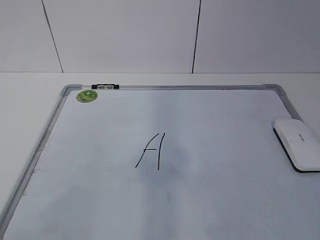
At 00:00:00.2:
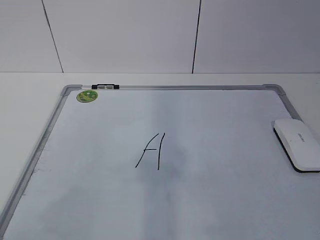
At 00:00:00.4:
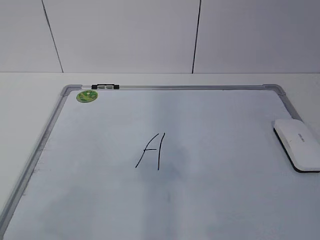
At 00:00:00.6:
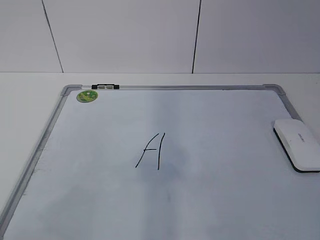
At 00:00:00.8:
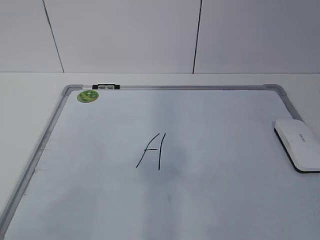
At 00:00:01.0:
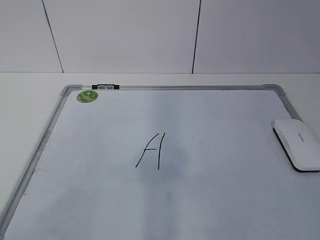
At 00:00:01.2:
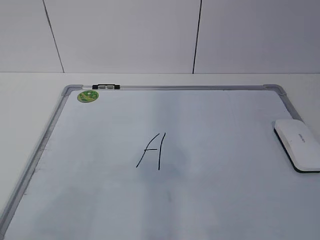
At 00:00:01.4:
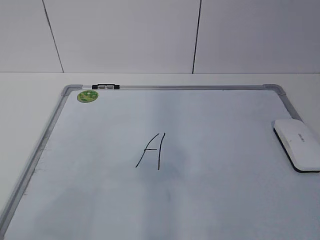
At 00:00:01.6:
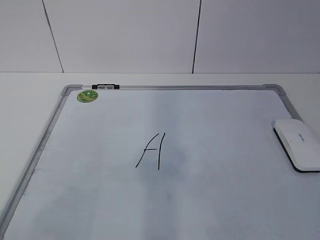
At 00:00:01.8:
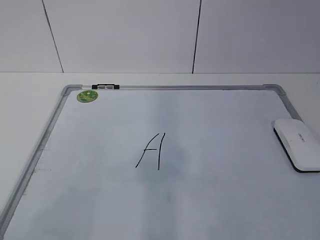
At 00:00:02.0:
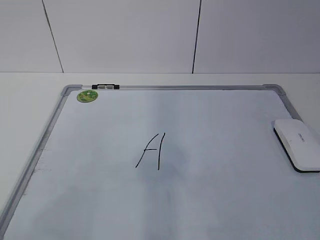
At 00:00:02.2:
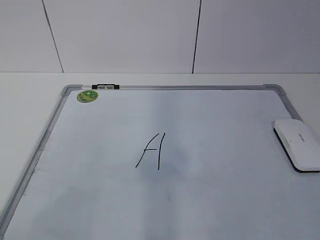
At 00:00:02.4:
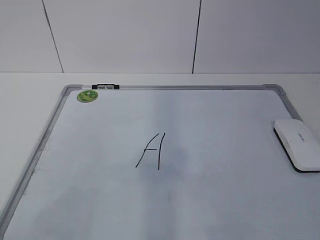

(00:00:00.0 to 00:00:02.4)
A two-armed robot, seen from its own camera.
Task of the whole recording: pick up the eraser on the blackboard and erase the letter "a".
00:00:00.0 - 00:00:01.2: Neither gripper changes place.
00:00:01.2 - 00:00:02.4: The two grippers keep their place.
